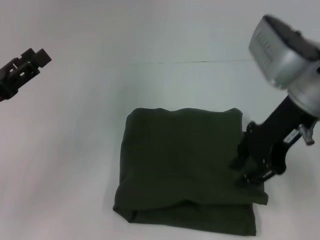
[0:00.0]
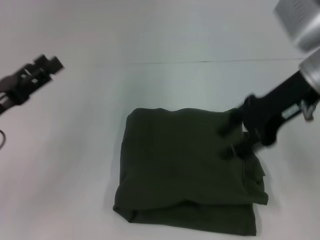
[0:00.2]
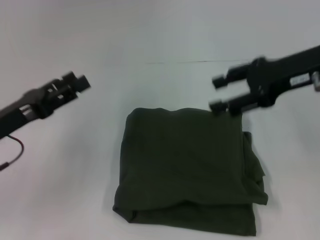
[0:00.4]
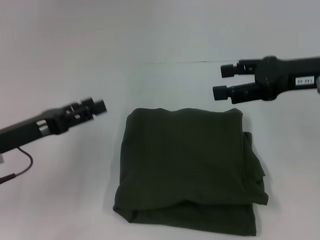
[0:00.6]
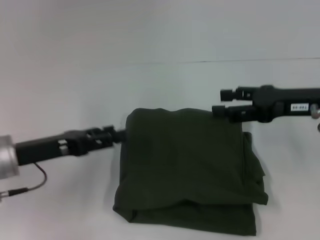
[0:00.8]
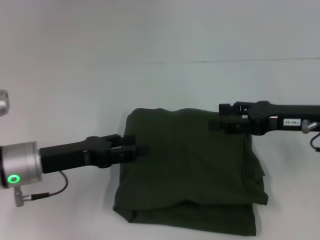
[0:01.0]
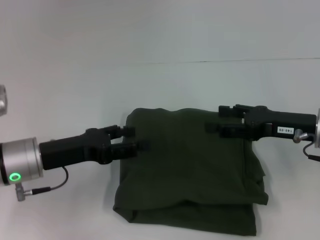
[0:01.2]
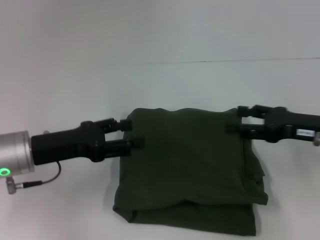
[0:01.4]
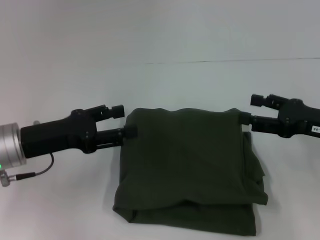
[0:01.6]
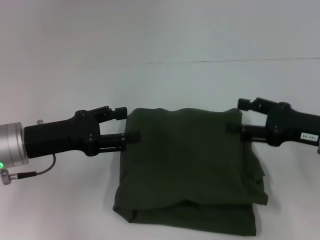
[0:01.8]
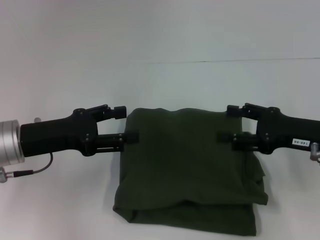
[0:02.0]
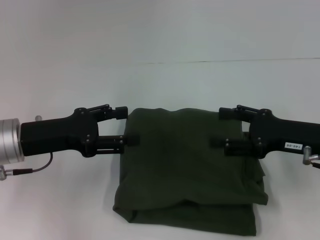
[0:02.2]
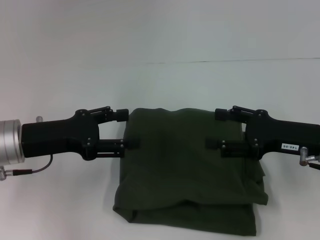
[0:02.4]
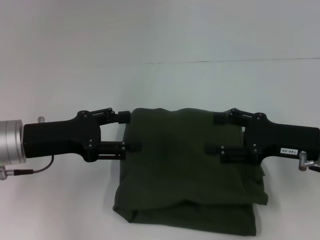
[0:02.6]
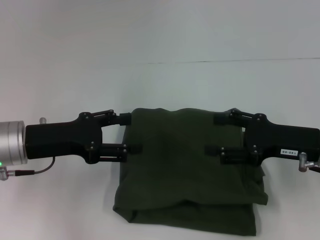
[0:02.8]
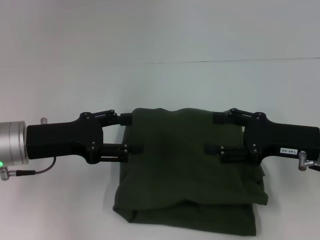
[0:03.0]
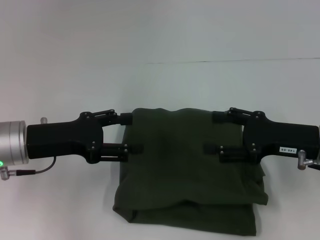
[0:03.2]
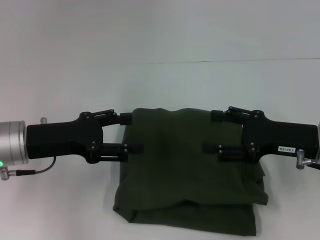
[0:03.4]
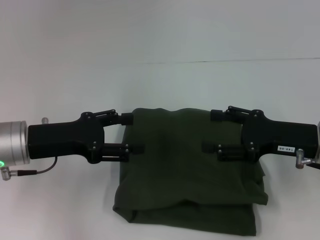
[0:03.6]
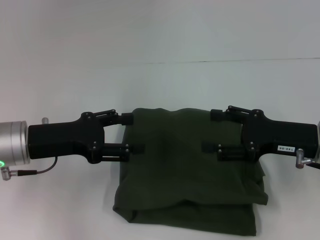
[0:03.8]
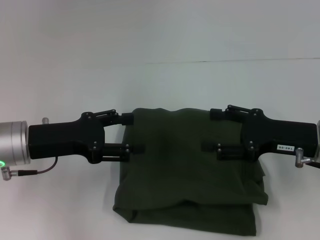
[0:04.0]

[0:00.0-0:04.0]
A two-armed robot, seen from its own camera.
0:00.0 to 0:01.4: The left gripper travels to the right by about 10 cm. The right gripper heads downward and to the right, covering roughly 15 cm, and opens its fingers.
0:01.4 to 0:02.6: The grippers move only a little.
0:02.6 to 0:04.0: Neither gripper changes place.

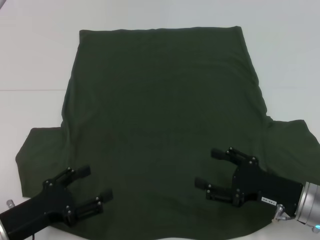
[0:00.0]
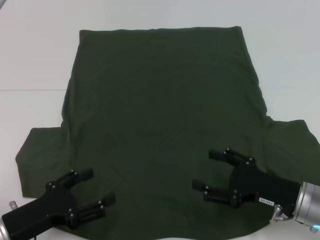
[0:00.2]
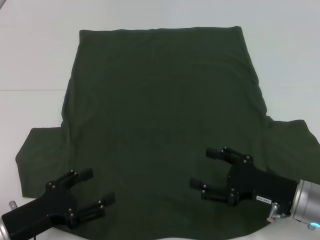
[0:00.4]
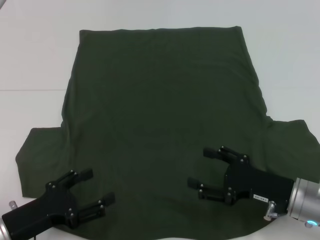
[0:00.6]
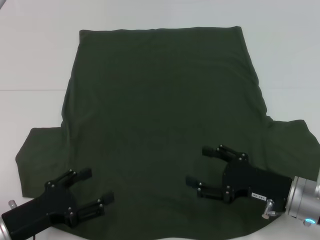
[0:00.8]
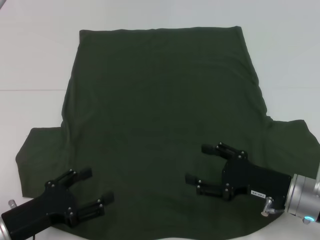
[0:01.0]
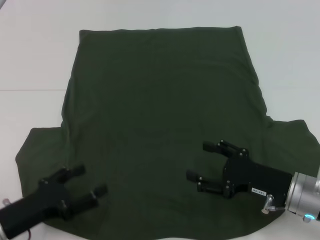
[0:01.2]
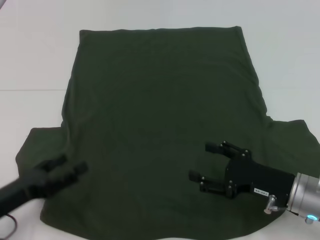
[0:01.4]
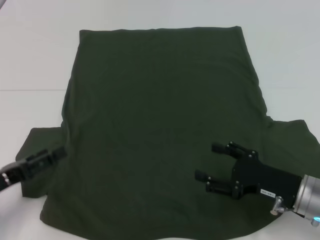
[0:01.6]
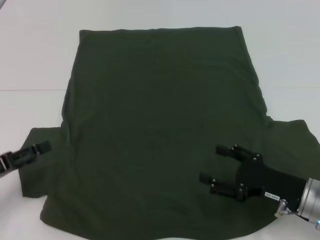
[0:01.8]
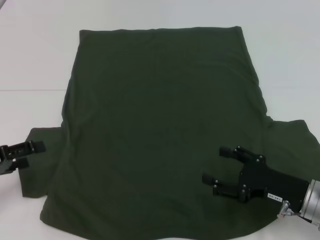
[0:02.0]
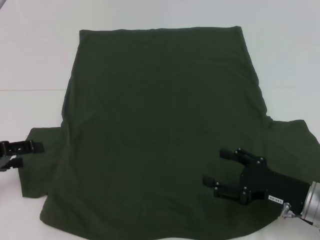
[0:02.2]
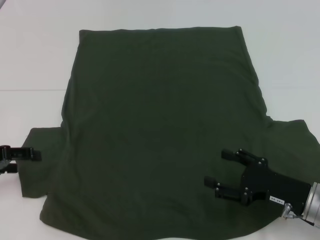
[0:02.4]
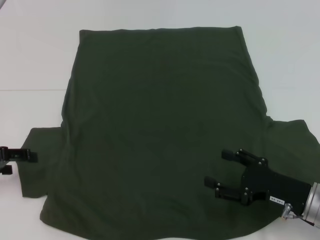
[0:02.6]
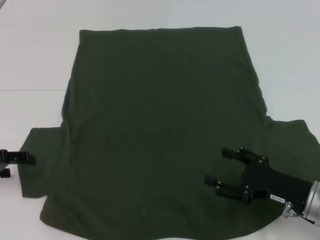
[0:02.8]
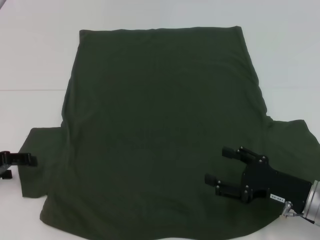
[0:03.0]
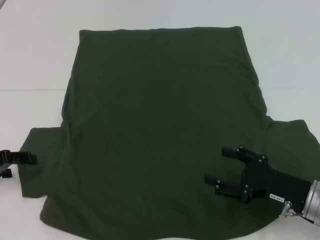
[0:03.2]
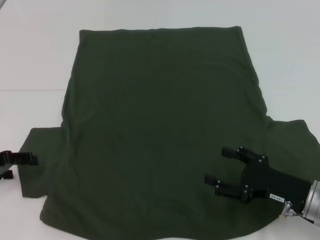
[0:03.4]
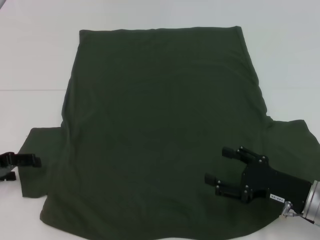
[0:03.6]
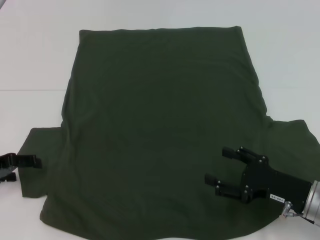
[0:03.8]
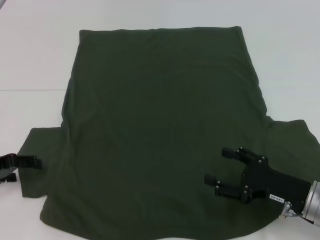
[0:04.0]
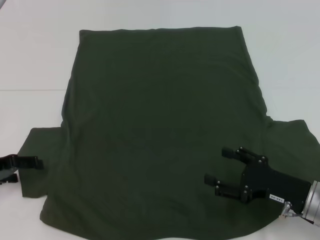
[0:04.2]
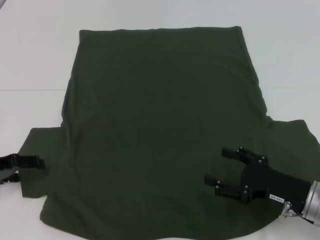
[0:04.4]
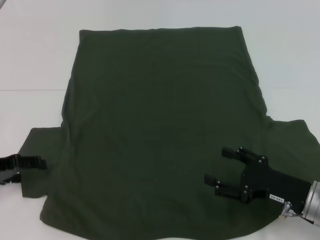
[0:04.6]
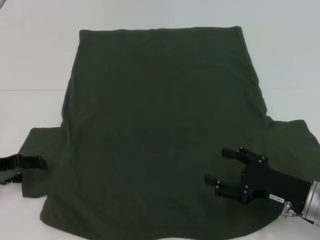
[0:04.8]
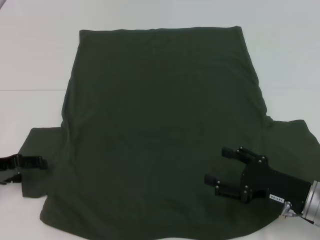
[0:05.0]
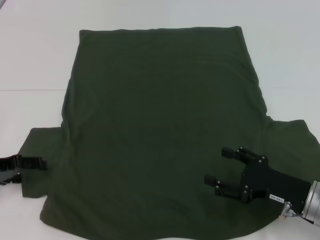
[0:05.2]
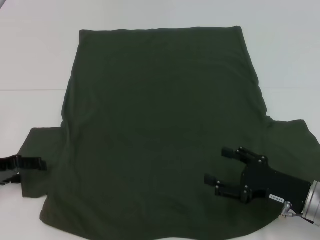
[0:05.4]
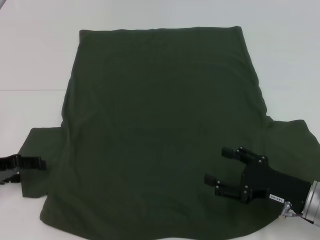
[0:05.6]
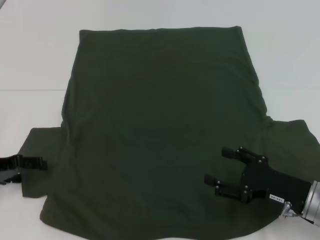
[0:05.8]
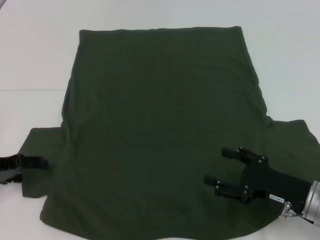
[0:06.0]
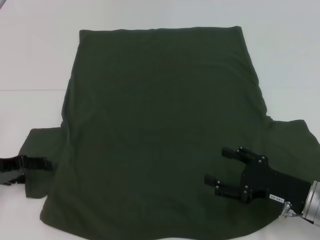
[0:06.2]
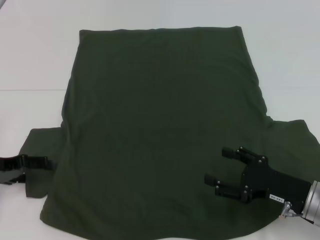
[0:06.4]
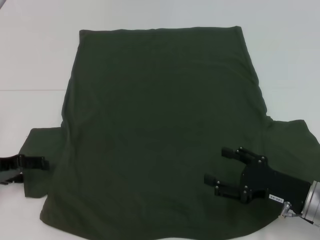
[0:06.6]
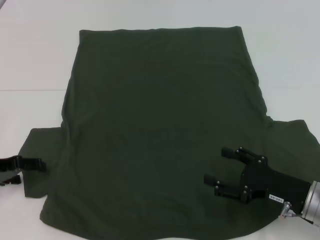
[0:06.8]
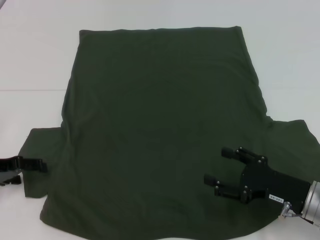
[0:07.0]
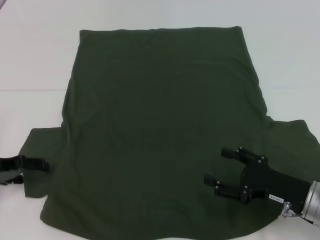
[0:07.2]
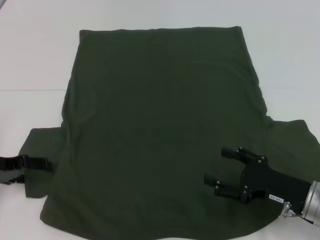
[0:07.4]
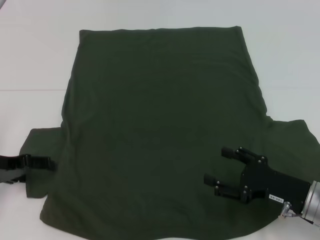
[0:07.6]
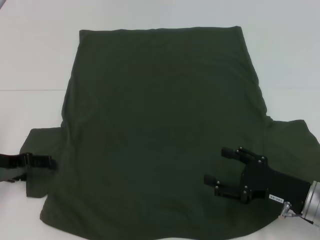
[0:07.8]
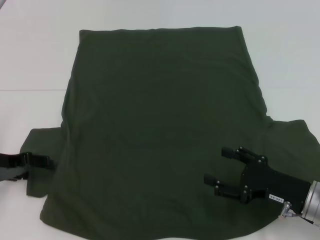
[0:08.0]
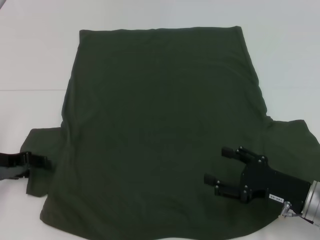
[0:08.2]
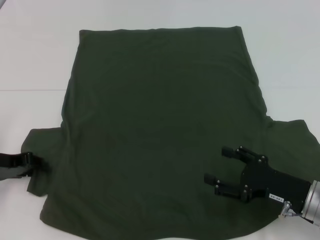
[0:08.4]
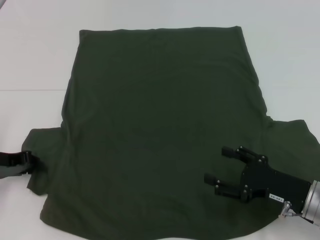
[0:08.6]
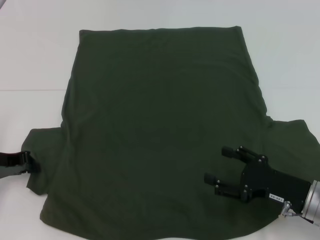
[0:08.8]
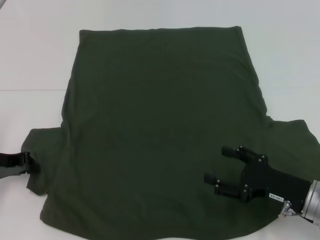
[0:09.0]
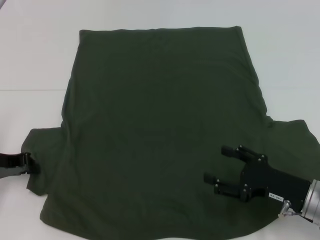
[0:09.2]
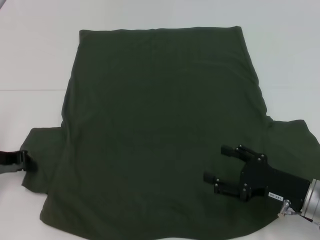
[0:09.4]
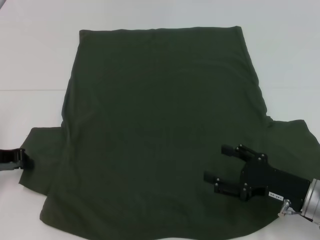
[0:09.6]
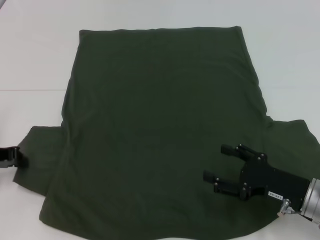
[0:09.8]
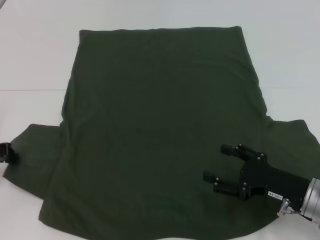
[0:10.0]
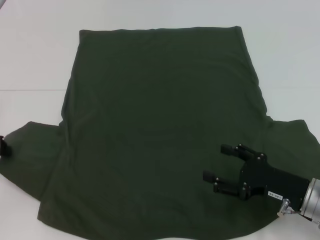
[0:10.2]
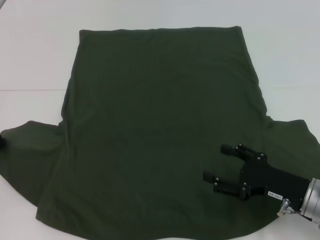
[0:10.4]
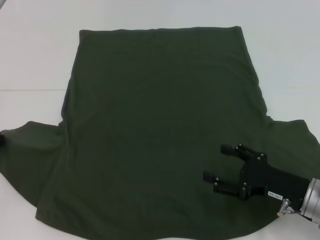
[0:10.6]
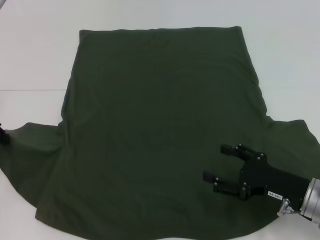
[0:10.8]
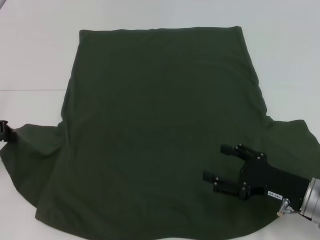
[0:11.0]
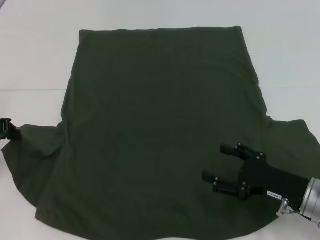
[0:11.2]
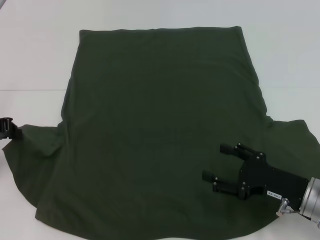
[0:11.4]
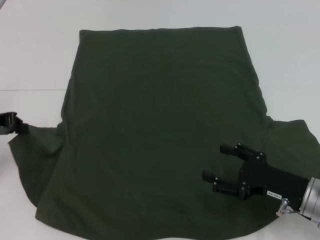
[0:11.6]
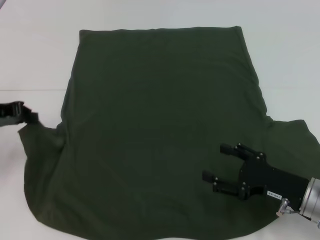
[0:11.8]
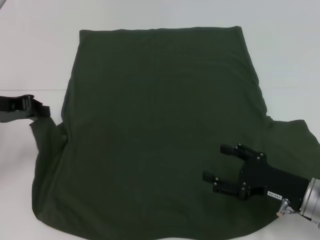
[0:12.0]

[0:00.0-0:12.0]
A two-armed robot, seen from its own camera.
0:00.0 to 0:01.6: The left gripper heads to the left, covering roughly 5 cm.
0:01.6 to 0:03.0: The left gripper heads forward, covering roughly 10 cm.
0:04.4 to 0:06.0: Neither gripper changes place.
0:06.0 to 0:07.6: Neither gripper changes place.
0:07.6 to 0:09.0: The left gripper closes.
0:09.0 to 0:10.4: The left gripper changes place by about 5 cm.
0:10.4 to 0:12.0: The left gripper ends up some 5 cm from where it was.

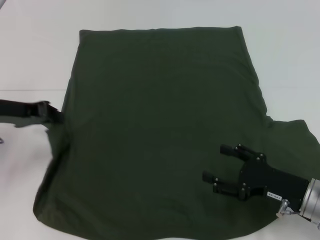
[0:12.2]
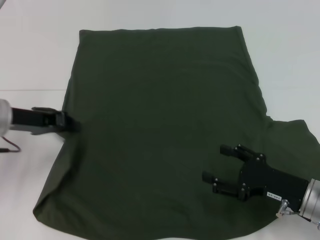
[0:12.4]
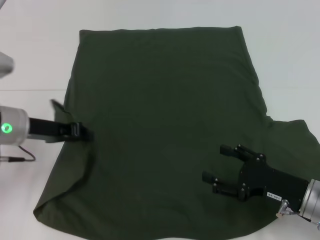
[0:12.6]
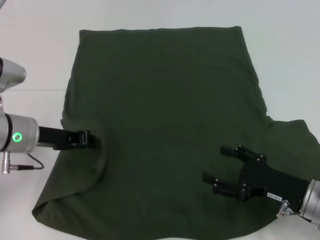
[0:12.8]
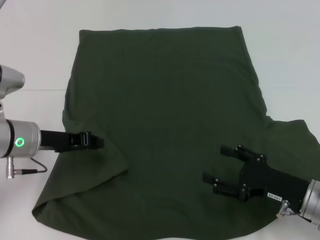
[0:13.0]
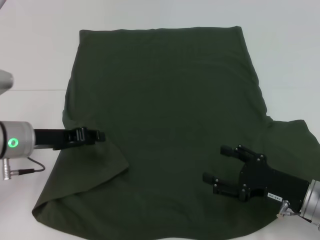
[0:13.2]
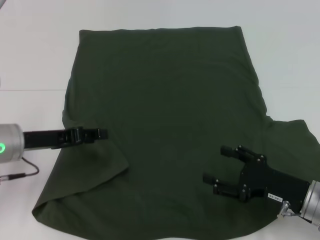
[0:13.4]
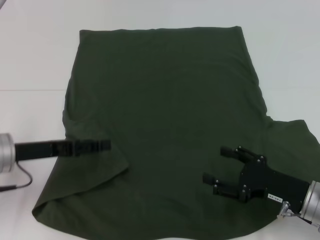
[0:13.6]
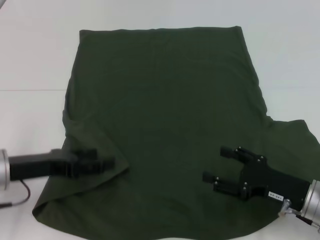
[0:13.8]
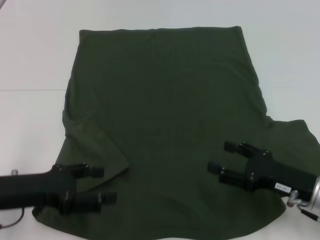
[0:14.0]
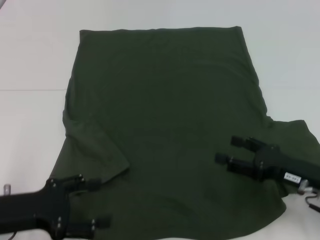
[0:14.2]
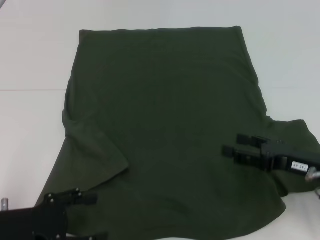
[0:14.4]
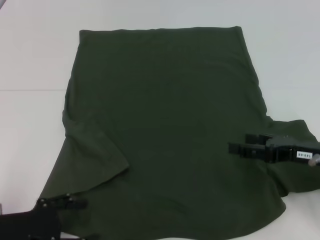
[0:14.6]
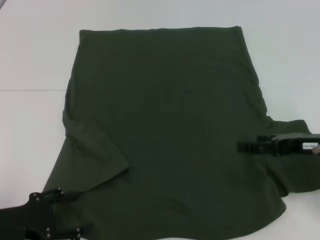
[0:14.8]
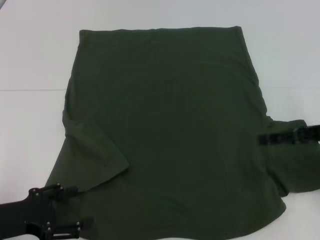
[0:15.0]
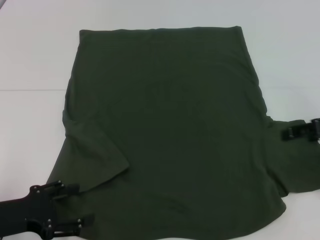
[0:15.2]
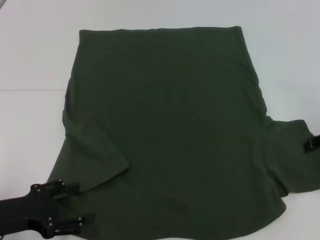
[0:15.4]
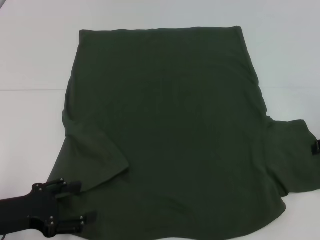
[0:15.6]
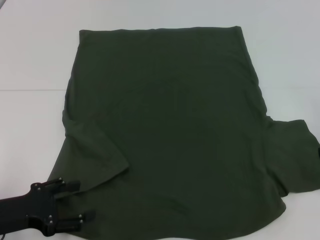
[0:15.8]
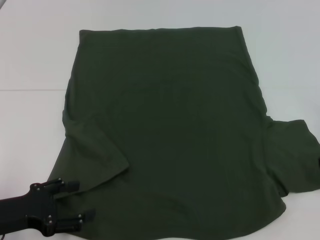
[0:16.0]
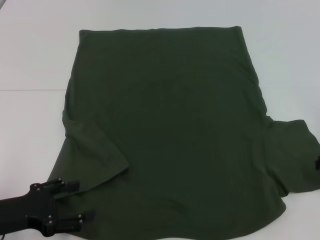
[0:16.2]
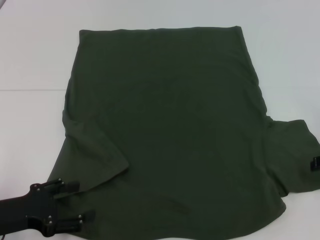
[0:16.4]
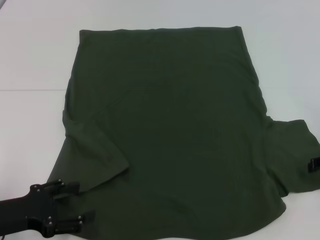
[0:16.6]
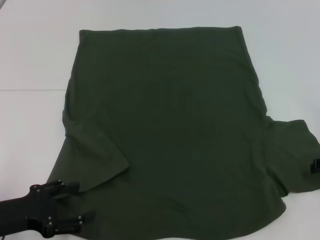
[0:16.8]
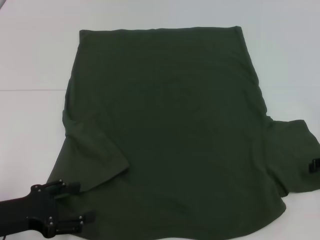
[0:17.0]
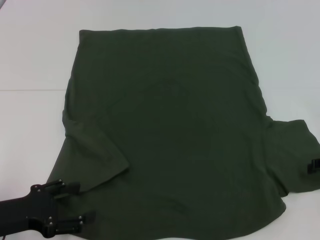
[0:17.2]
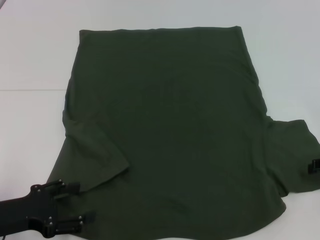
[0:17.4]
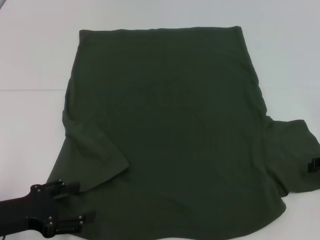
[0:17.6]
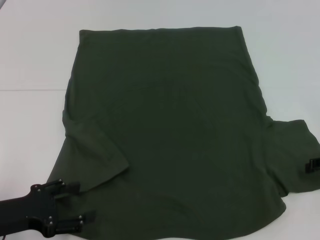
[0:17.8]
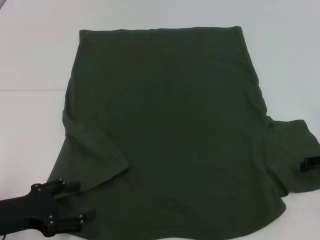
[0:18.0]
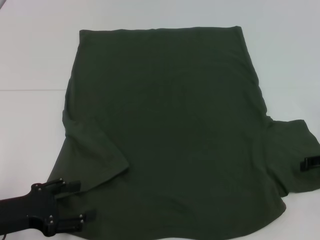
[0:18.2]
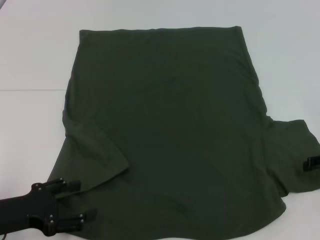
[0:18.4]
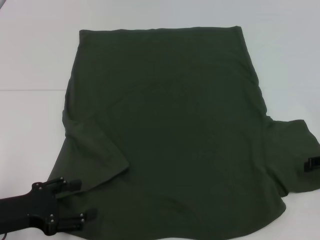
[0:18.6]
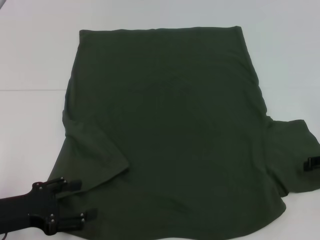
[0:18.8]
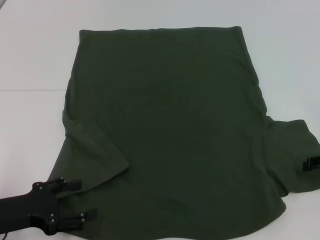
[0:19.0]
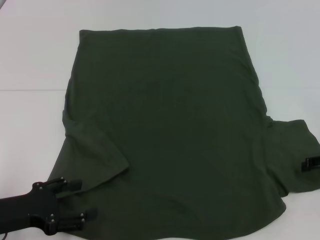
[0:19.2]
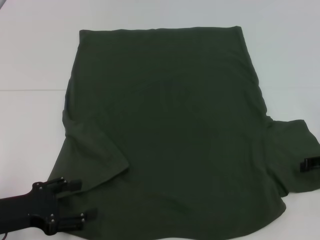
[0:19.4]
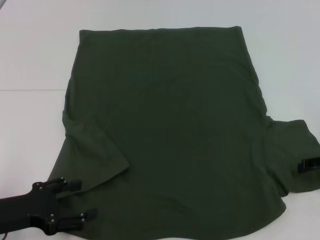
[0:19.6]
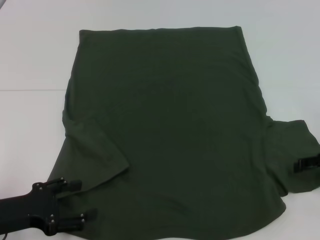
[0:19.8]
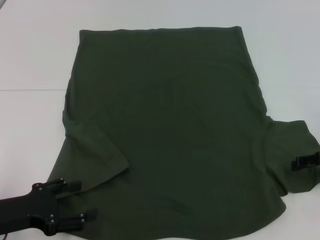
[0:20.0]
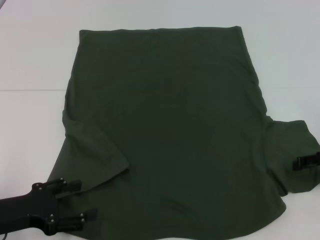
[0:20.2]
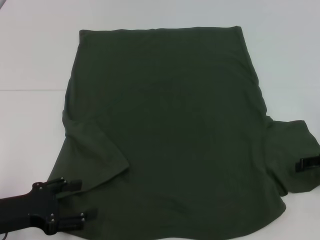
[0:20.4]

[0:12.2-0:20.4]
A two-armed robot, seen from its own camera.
0:12.2 to 0:13.8: The left gripper travels backward and downward by some 10 cm, and opens up.
0:13.8 to 0:15.4: The left gripper shifts approximately 5 cm backward. Meanwhile the right gripper moves upward, to the right and forward, some 20 cm.
0:17.2 to 0:18.8: Both grippers stay put.
0:18.8 to 0:20.4: Both grippers stay put.
